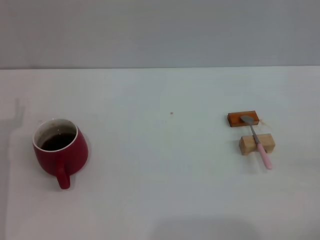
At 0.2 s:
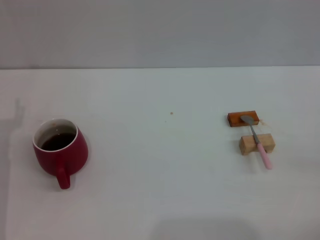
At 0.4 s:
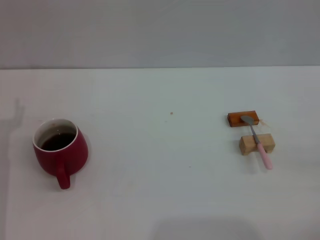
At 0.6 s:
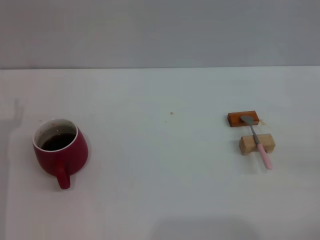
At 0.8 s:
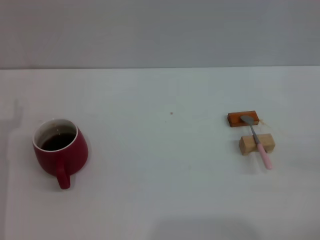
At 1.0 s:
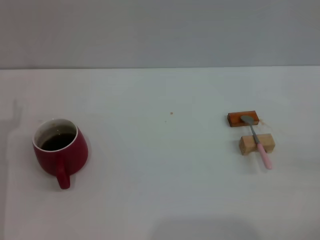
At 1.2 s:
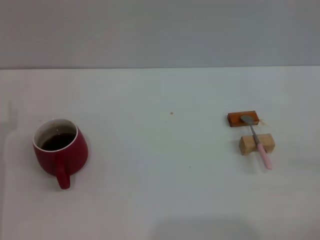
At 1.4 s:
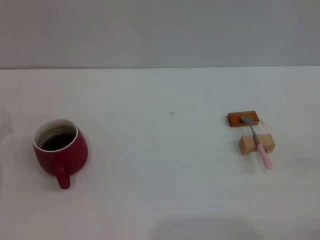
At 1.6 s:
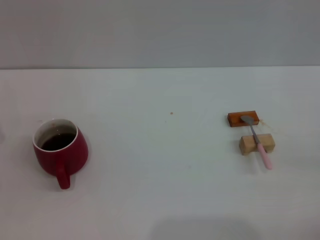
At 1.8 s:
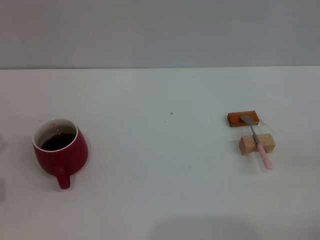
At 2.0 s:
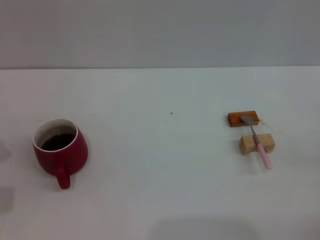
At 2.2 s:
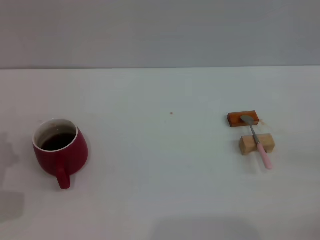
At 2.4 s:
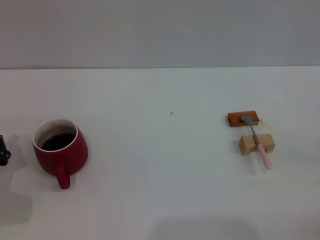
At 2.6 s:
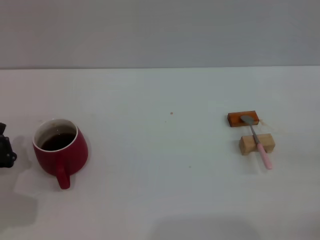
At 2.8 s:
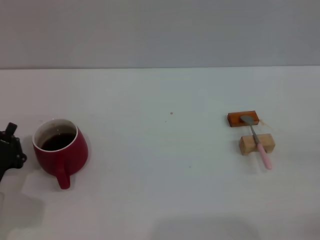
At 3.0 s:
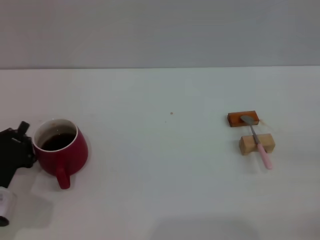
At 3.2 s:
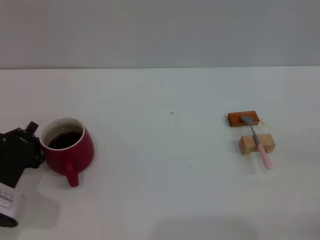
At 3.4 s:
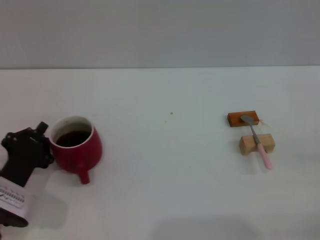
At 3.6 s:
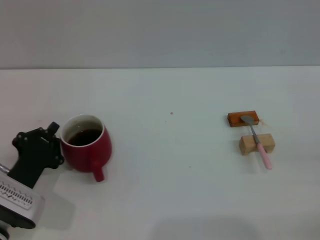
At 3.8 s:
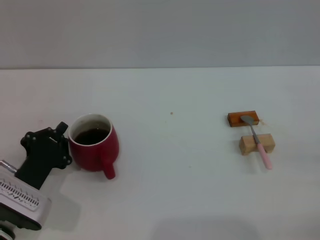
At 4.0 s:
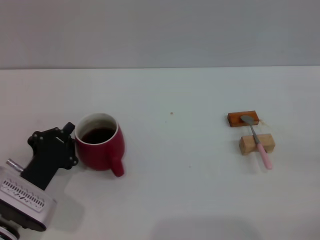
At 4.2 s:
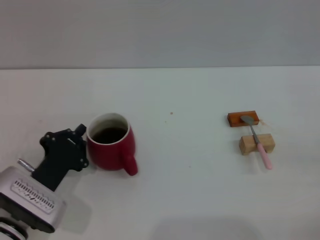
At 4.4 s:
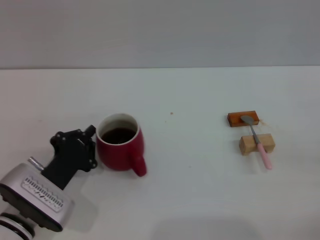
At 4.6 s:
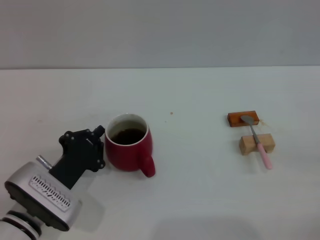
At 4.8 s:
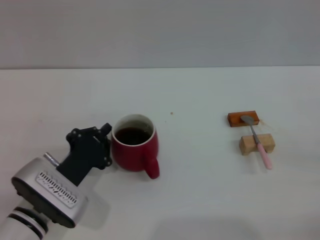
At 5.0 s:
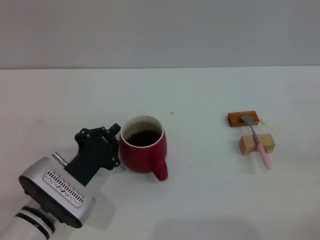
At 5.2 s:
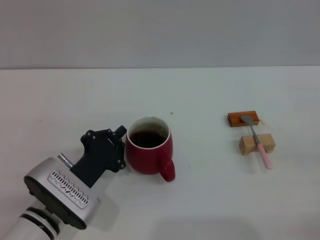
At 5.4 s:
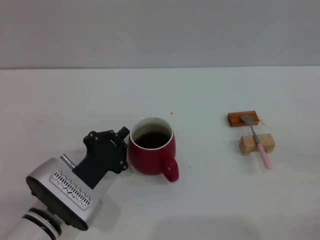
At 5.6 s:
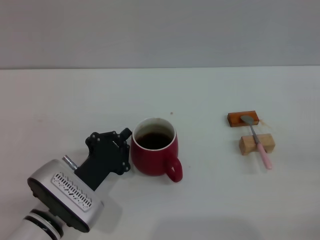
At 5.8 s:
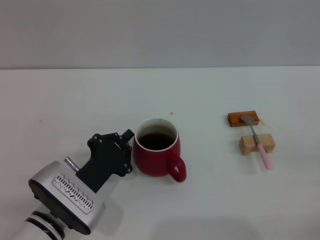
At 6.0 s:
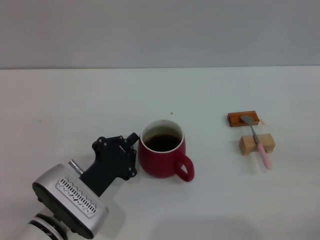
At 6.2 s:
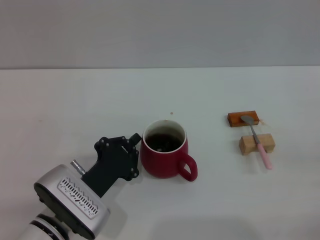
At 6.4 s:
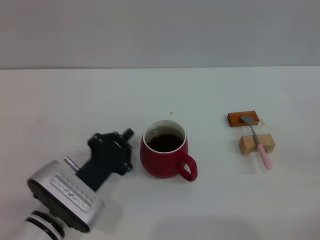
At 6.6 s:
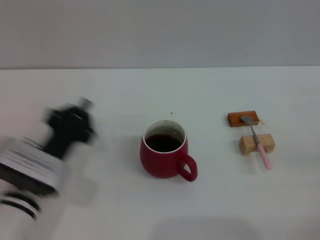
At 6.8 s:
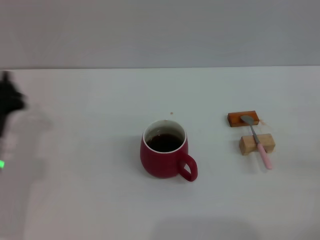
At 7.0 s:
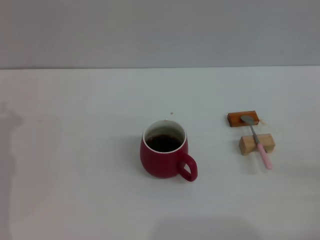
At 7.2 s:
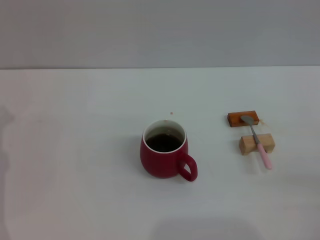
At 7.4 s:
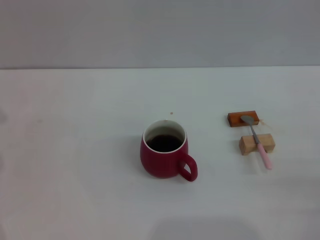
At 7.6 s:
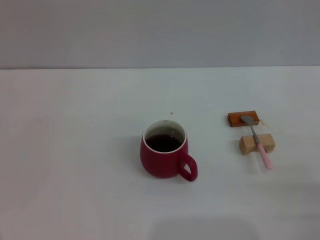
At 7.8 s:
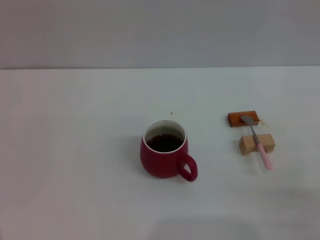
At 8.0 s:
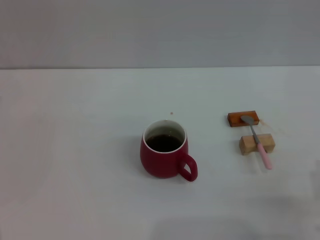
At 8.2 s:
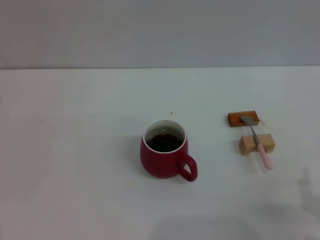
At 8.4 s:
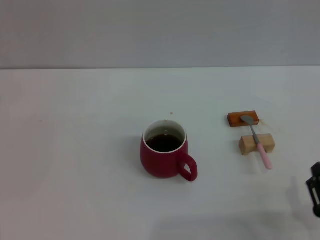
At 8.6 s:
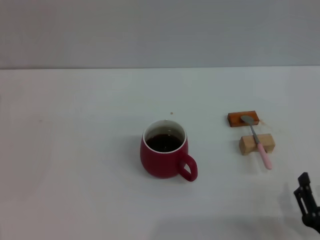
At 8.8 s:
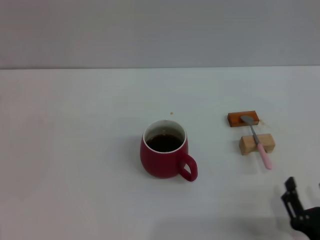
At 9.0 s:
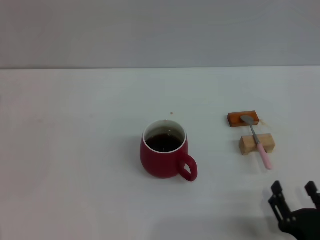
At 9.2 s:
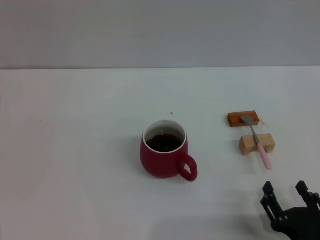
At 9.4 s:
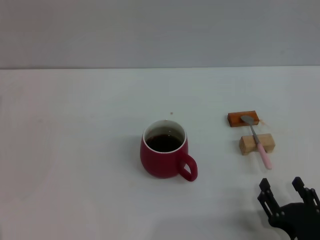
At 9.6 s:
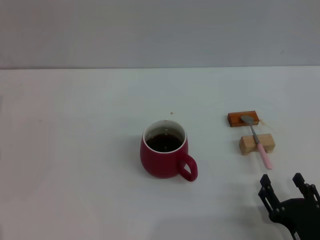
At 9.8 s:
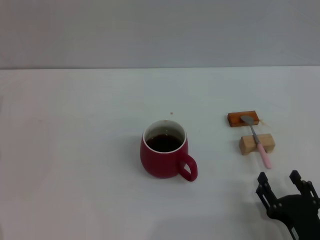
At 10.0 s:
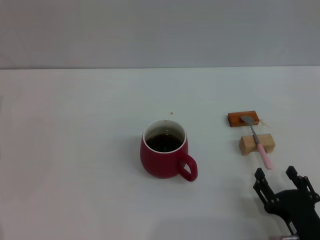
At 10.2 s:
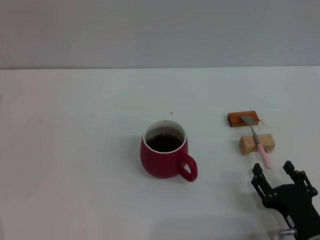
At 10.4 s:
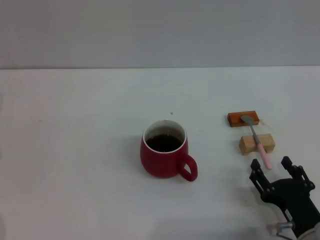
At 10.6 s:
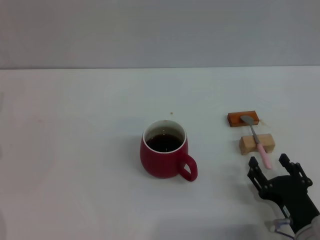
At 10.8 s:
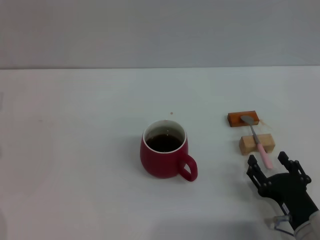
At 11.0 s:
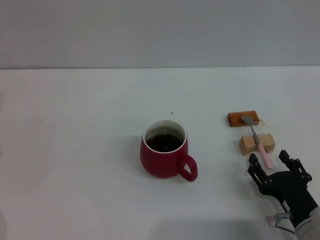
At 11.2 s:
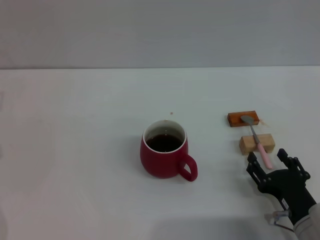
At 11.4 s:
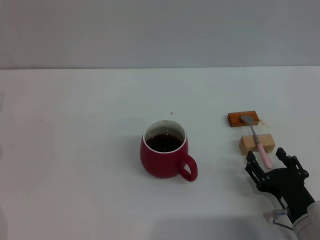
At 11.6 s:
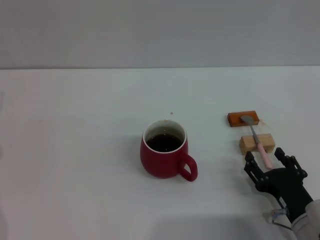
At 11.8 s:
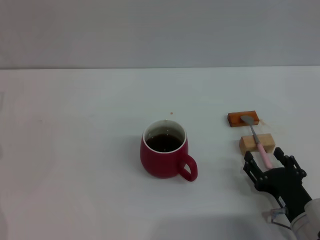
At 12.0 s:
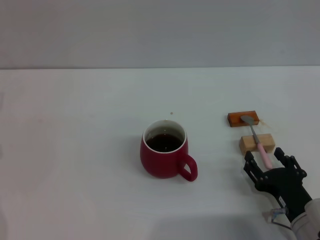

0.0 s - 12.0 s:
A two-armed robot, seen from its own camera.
Task of the whole recording: Move the red cup to the center, lift the pink spoon, stir it three times in the cup, and put the spoon into the cup.
Step, 0.0 s - 6.4 s: Move the cup with coffee to the center of view with the left gripper.
1.6 s - 3.0 s: The left gripper ends up approximately 5 cm from where it was, and closes its fingers.
3.0 s - 4.4 s: The left gripper is displaced to the right by some 5 cm.
4.4 s - 6.0 s: The left gripper shifts approximately 5 cm to the right.
6.0 s - 7.6 s: The right gripper is displaced to the left and backward by roughly 10 cm. Meanwhile the left gripper is displaced to the left by approximately 20 cm.
7.6 s - 9.0 s: The right gripper goes some 10 cm to the left and backward.
9.0 s - 10.4 s: The right gripper travels forward by roughly 5 cm.
10.4 s - 12.0 s: The grippers move only a little.

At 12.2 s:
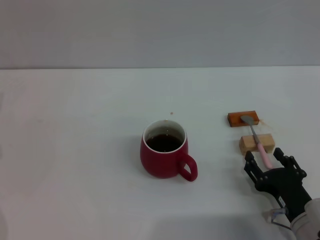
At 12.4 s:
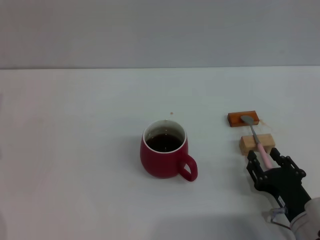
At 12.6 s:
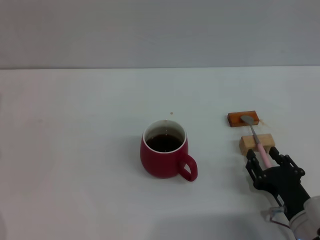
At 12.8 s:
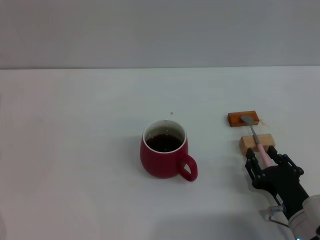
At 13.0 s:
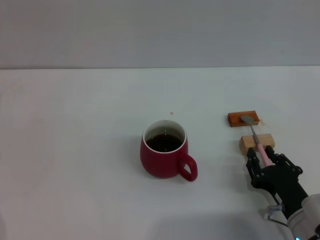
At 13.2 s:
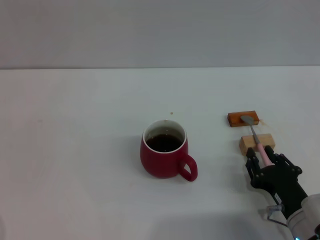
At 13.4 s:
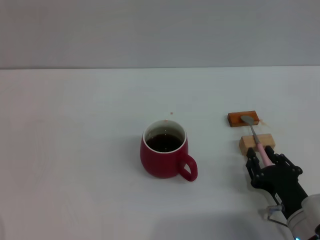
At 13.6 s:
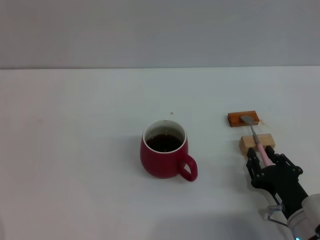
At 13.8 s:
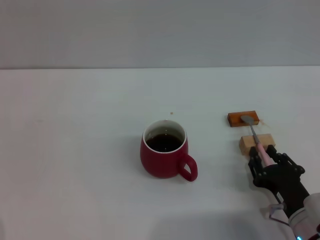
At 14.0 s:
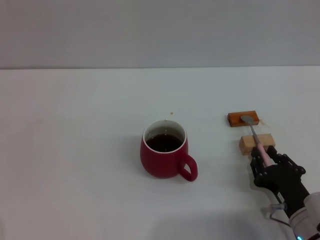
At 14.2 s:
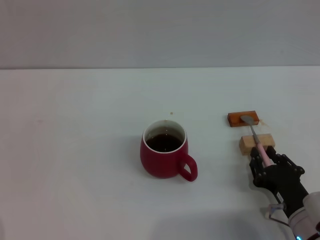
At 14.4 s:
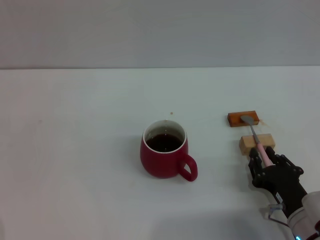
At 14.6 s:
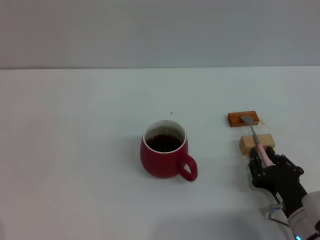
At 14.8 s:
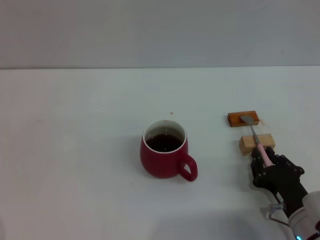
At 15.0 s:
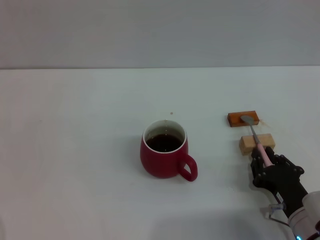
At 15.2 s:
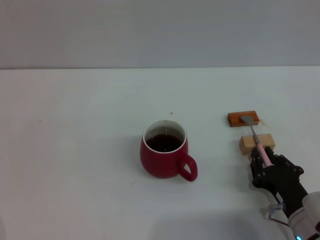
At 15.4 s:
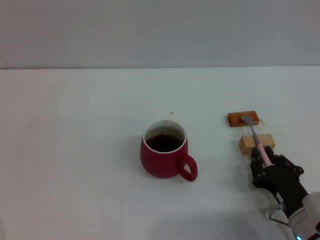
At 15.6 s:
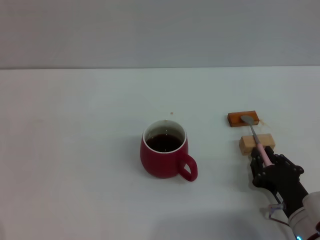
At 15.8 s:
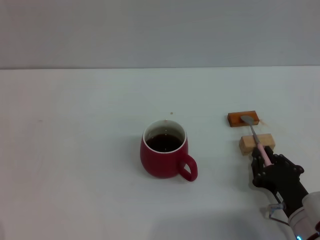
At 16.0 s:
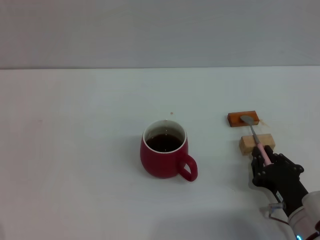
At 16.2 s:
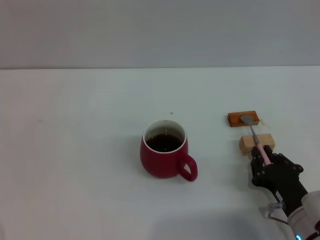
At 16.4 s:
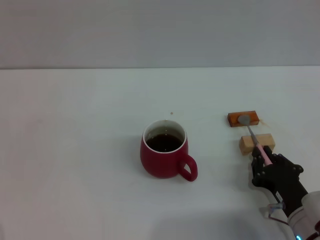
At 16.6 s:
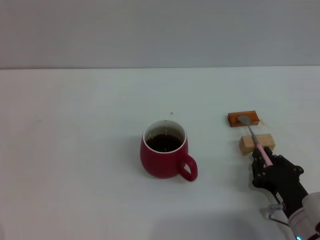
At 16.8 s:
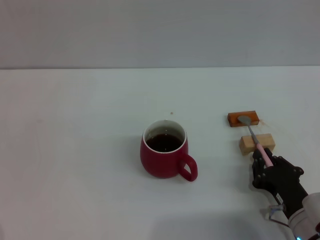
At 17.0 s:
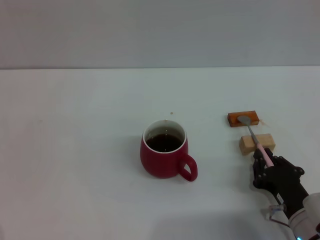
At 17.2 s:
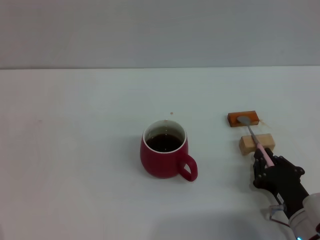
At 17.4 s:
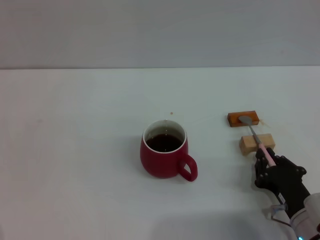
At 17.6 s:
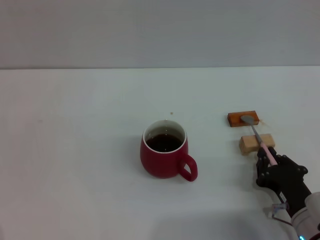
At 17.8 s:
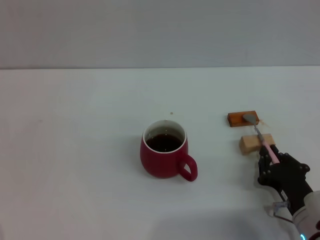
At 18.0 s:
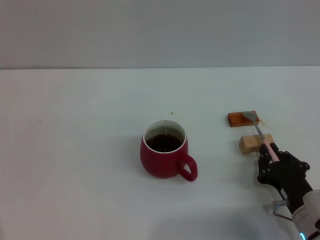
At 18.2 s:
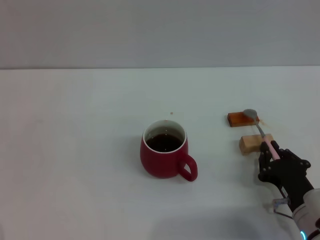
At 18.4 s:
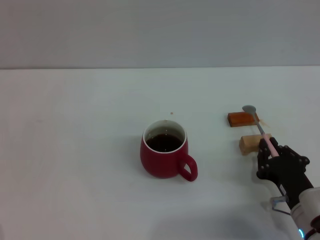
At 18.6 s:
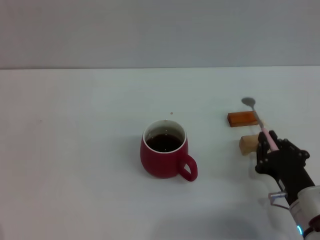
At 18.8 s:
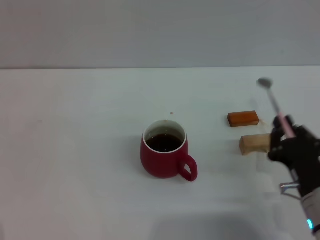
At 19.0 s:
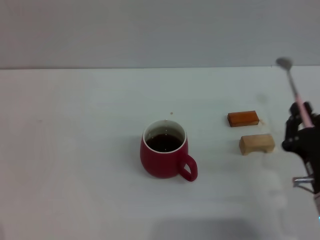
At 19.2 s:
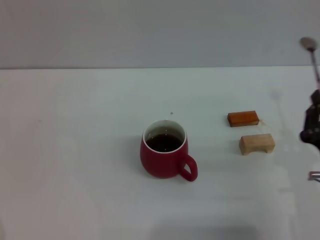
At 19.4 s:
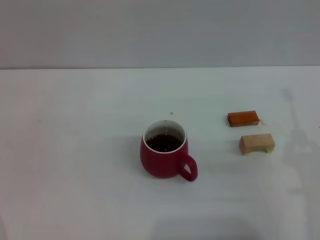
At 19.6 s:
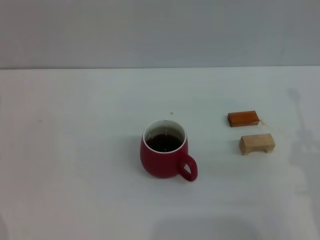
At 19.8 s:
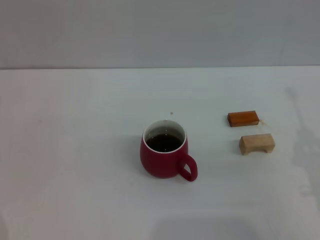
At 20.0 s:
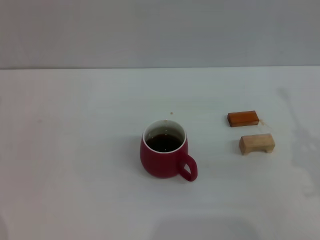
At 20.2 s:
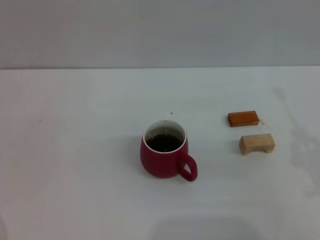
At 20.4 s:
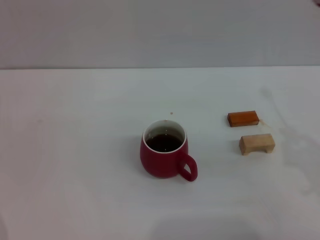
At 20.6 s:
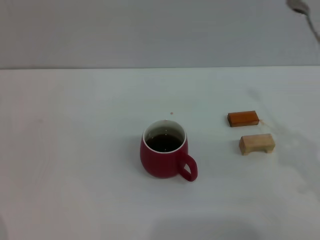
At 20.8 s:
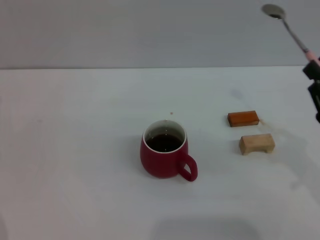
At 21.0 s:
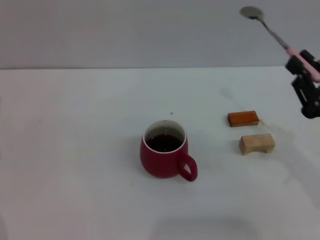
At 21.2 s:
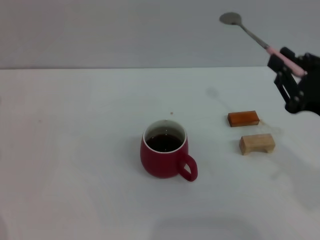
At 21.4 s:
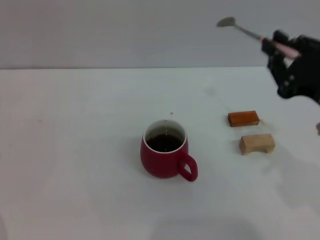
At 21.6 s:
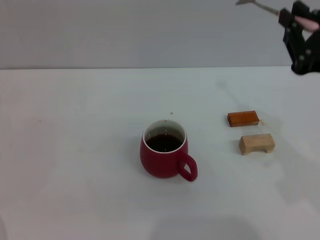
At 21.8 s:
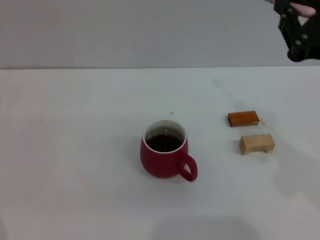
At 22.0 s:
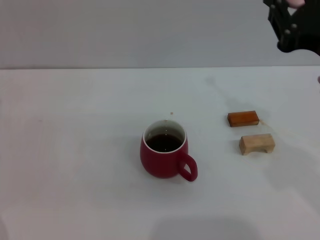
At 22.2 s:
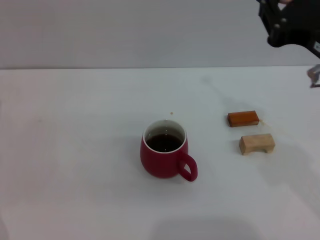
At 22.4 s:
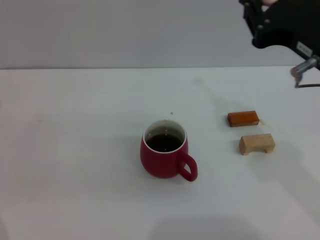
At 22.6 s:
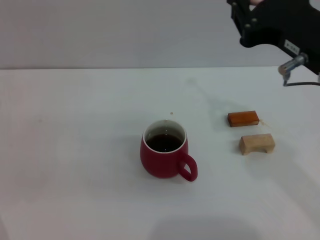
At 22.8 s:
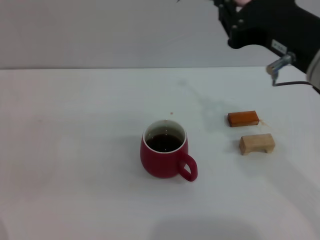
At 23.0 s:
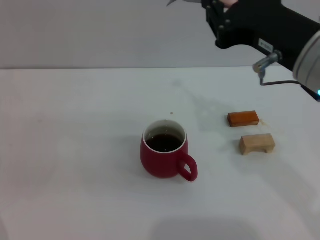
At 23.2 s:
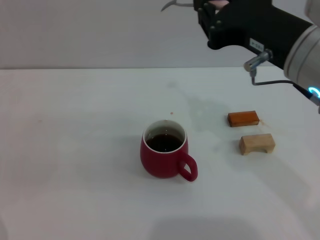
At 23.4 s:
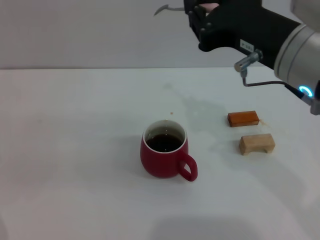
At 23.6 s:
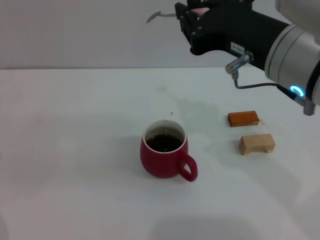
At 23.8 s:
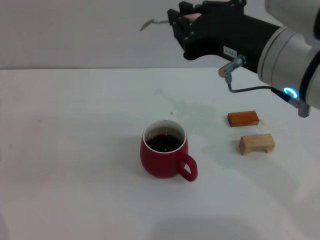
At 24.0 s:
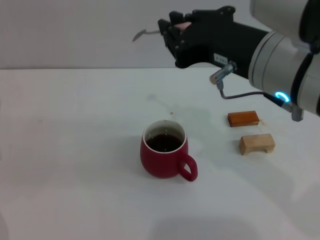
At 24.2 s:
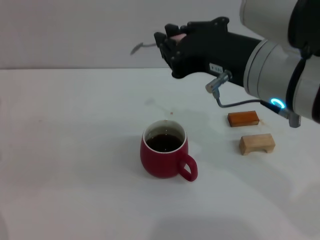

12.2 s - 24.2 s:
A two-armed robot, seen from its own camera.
Task of the whole recording: Move the red cup to the center, lift the pink spoon, stir it three times in the cup, and put the spoon into the cup.
Step, 12.2 s - 19.4 s: Pick up the spoon with the right gripper.
12.2 s - 16.6 s: Both grippers stay about where they are.
16.6 s - 18.2 s: The two grippers keep their place.
18.2 s - 19.8 s: The right gripper is displaced upward by approximately 10 cm.
19.8 s - 21.2 s: The right gripper is displaced upward by about 10 cm.
21.2 s - 22.6 s: The right gripper travels upward and to the left by approximately 10 cm.
22.6 s - 24.2 s: The right gripper heads to the left, covering about 5 cm.
